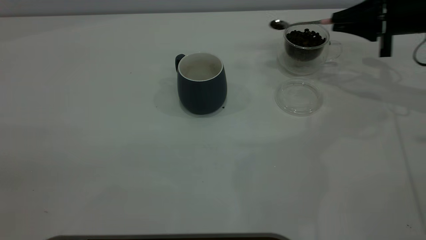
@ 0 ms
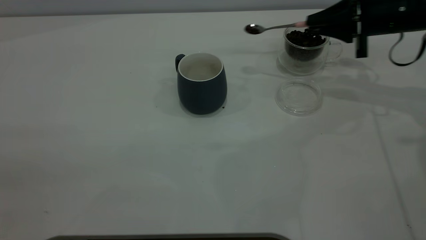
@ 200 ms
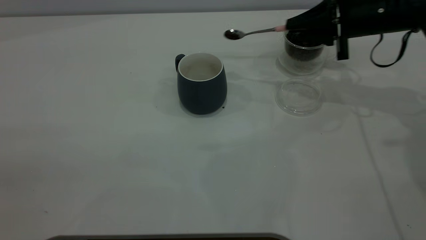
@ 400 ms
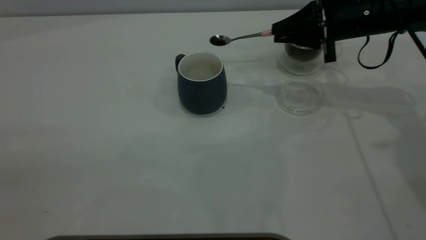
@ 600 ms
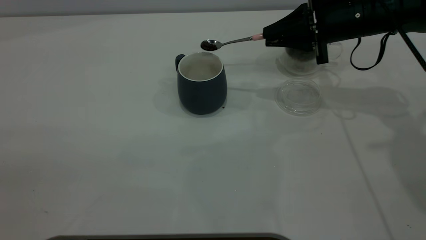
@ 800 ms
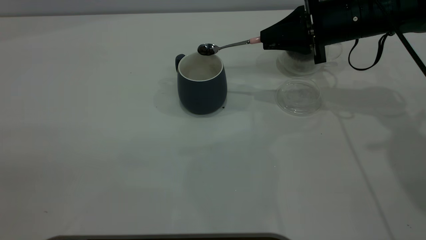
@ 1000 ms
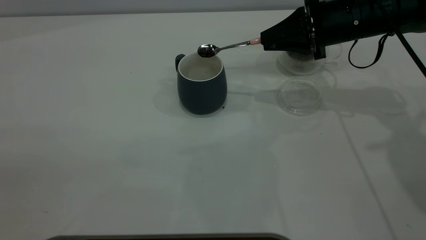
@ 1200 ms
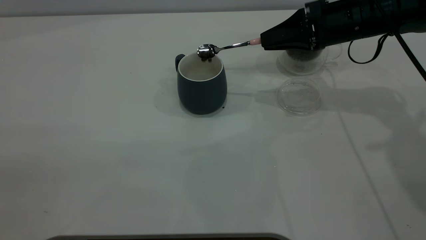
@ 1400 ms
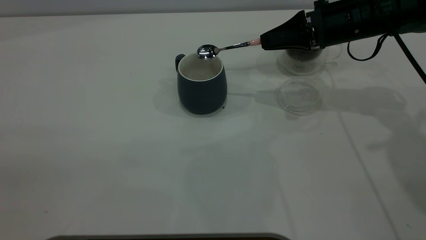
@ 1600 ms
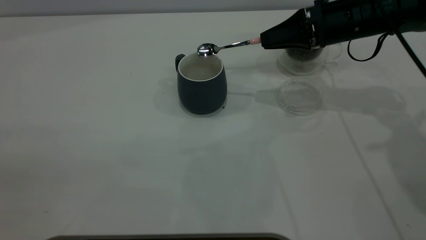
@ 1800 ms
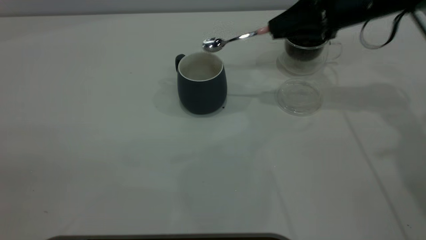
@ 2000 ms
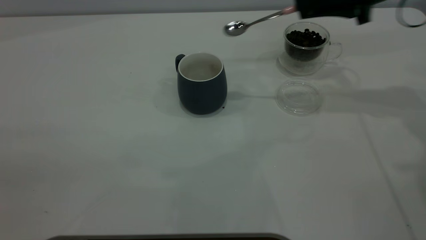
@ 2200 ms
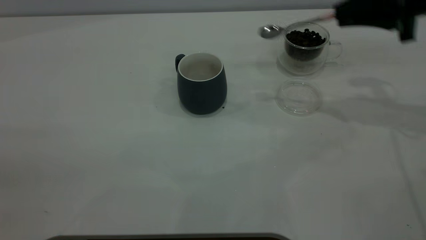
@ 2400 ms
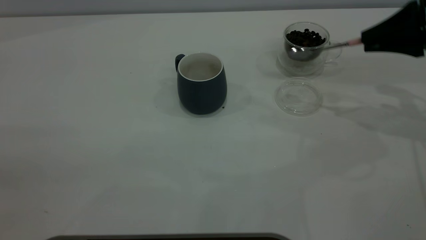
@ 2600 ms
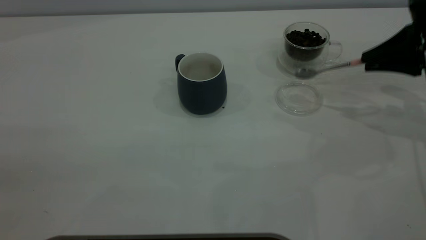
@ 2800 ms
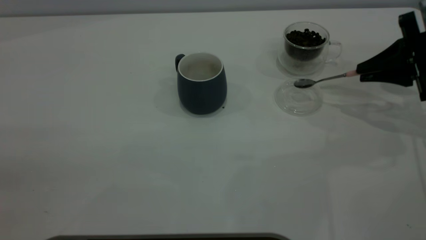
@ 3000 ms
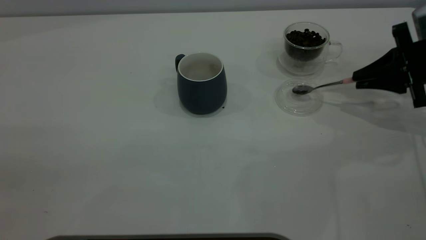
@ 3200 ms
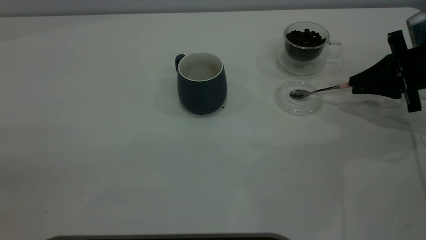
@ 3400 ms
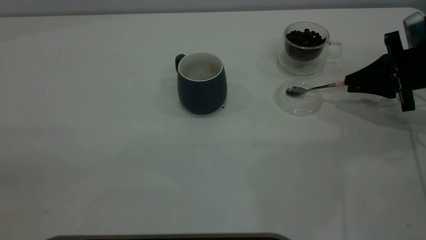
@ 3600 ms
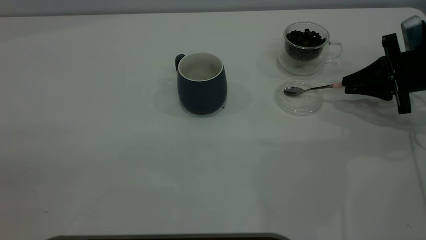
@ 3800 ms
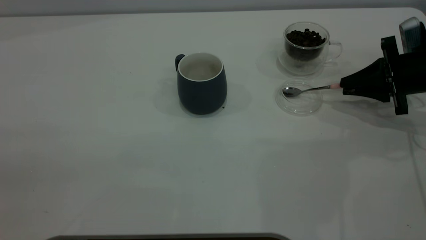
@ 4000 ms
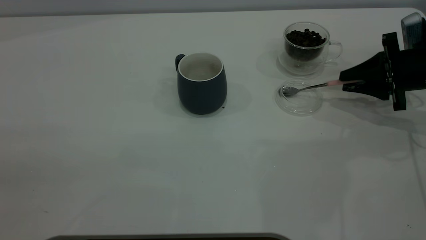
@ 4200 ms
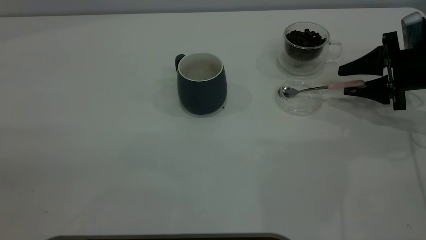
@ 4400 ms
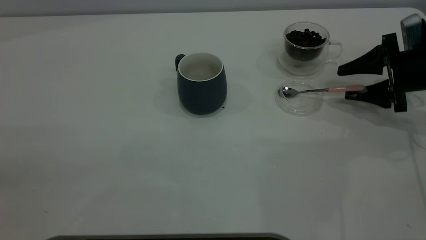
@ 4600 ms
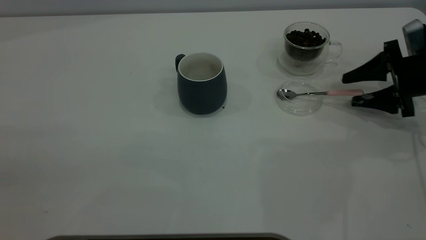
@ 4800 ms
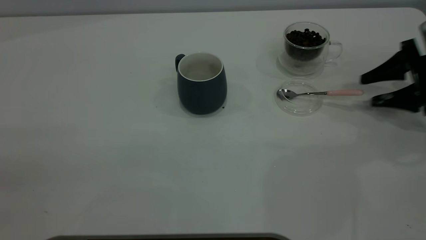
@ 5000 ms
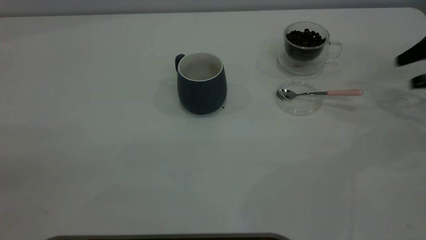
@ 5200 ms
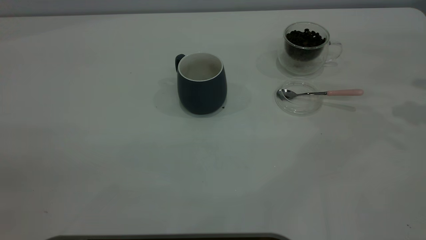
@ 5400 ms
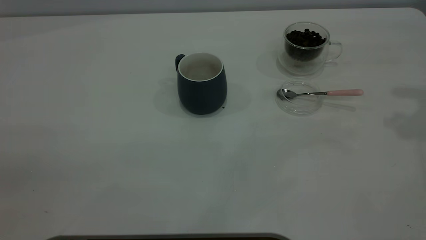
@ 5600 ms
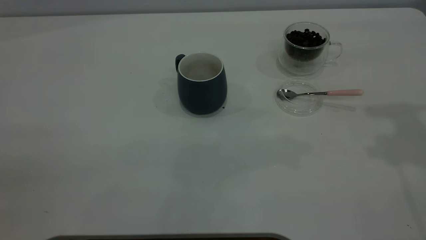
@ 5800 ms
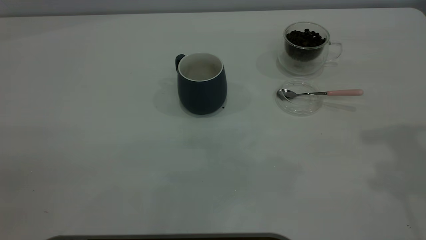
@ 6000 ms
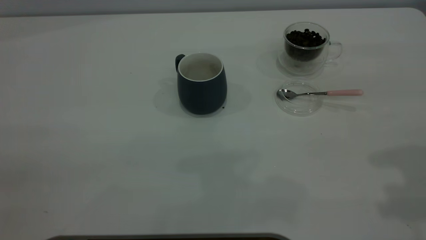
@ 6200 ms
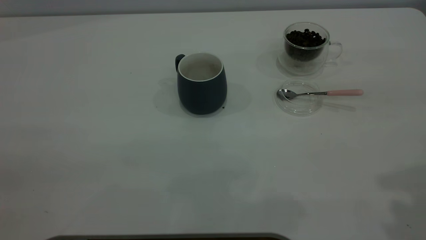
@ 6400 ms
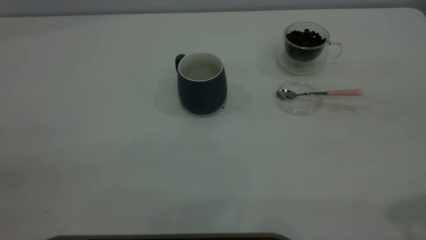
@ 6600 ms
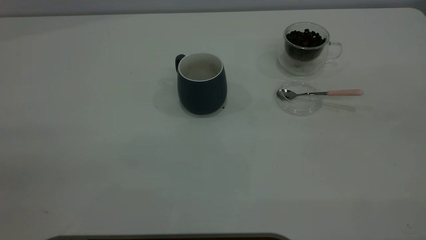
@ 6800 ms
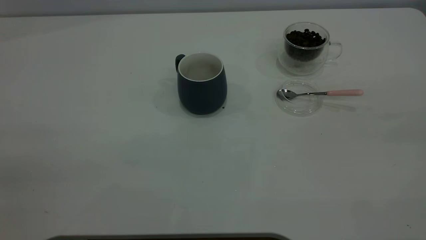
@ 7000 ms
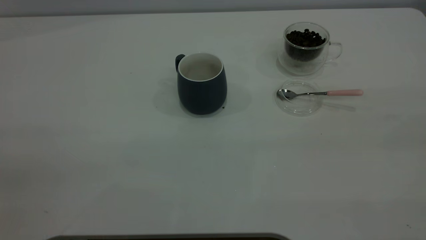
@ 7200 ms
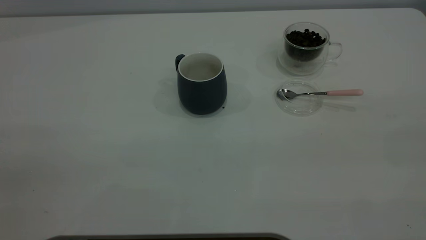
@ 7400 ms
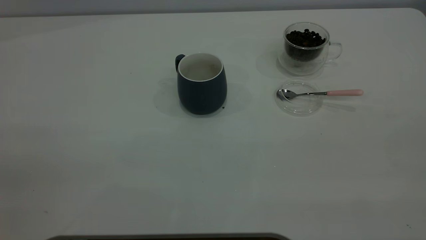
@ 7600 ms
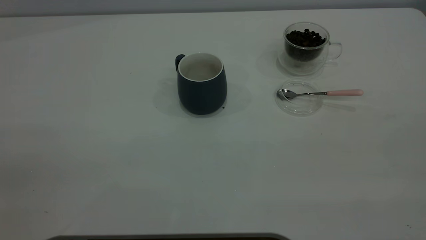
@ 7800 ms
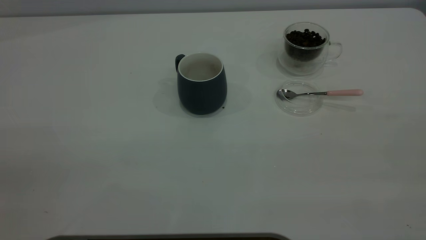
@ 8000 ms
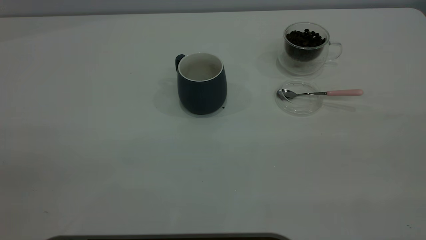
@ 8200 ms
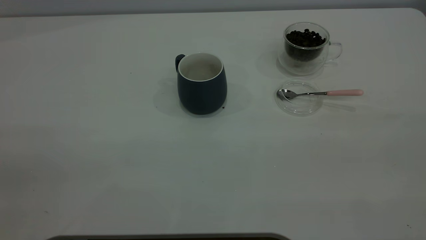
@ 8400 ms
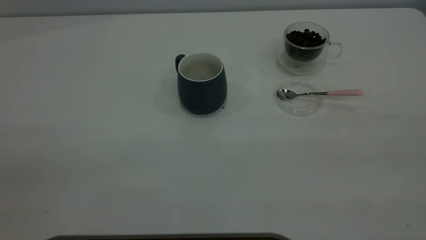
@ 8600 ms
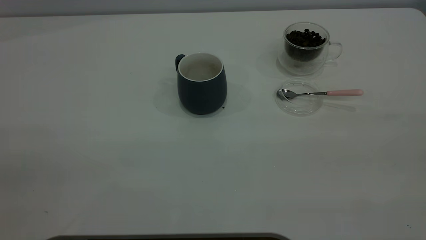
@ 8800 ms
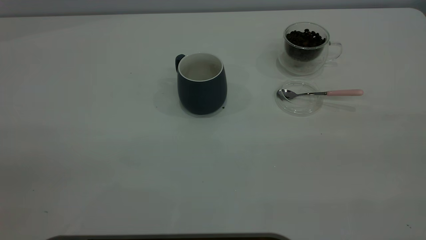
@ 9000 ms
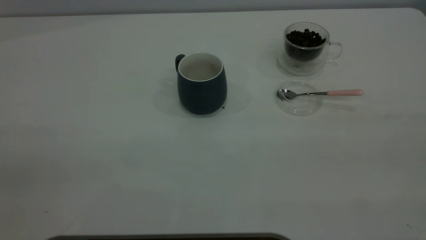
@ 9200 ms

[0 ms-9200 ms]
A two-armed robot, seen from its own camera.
Task of the whole recording: the left gripper place the grey cup in the center of the table, the right gripper take the pink spoon from the cup lid and scoop out the coffee beans from the coffee cup and put them into the grey cup, the right gripper put the spoon back into the cup lid.
Step, 2000 ms to 5000 ms: Place the spoon back in its original place.
0 ms to 1600 ms: The right gripper shifts roughly 10 cm to the left.
1600 ms to 3000 ms: The right gripper heads to the right and backward, covering about 15 cm.
3000 ms to 4600 ms: The right gripper opens its fingers.
4600 ms to 6200 ms: The right gripper shifts about 35 cm upward and backward.
